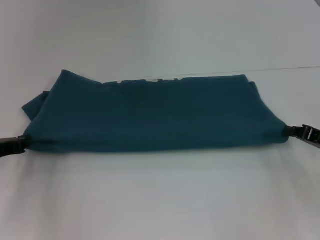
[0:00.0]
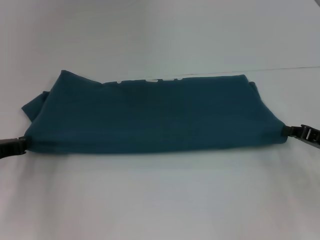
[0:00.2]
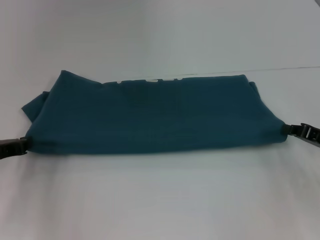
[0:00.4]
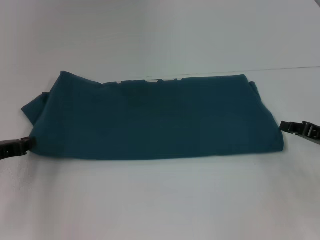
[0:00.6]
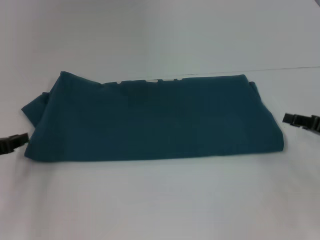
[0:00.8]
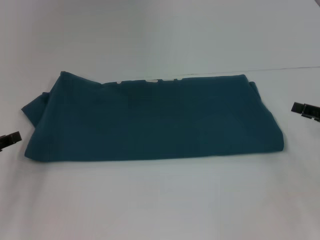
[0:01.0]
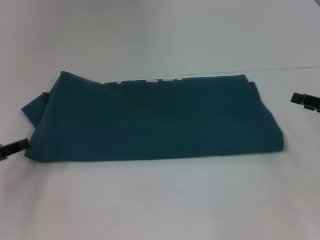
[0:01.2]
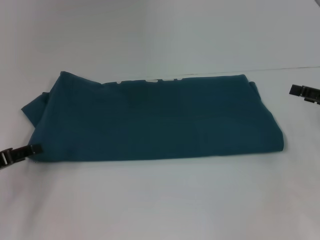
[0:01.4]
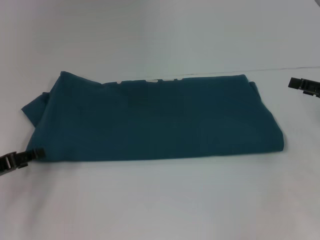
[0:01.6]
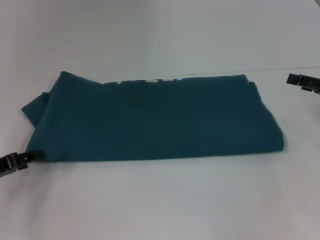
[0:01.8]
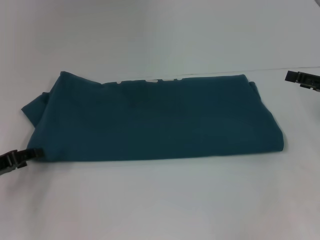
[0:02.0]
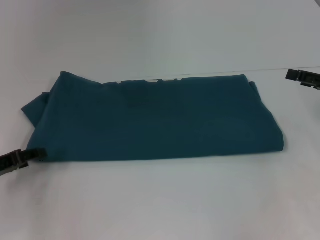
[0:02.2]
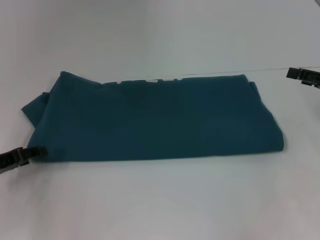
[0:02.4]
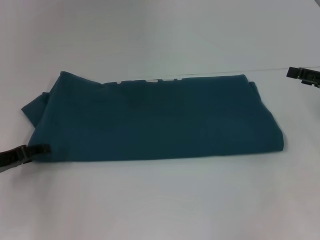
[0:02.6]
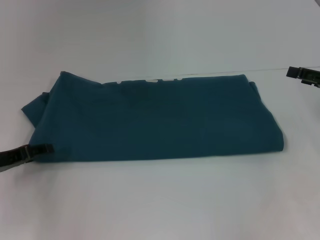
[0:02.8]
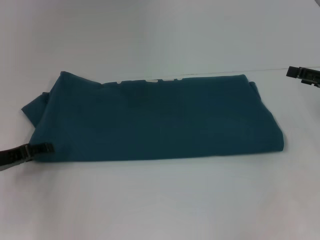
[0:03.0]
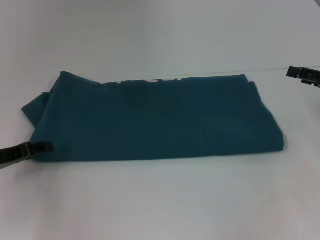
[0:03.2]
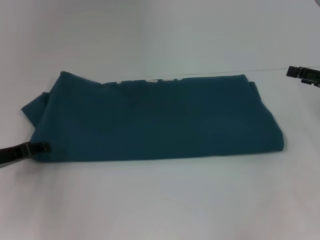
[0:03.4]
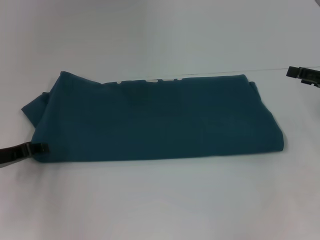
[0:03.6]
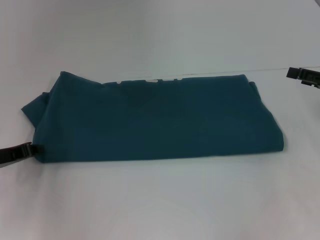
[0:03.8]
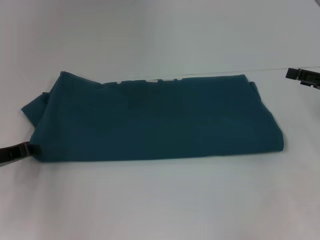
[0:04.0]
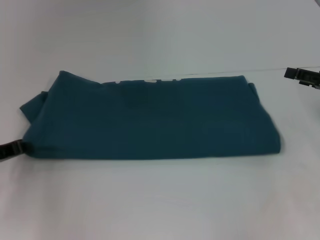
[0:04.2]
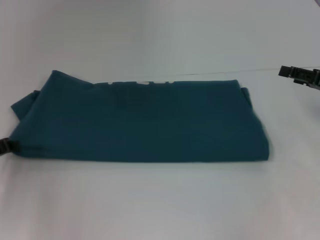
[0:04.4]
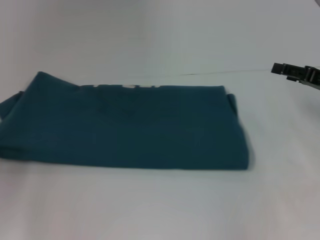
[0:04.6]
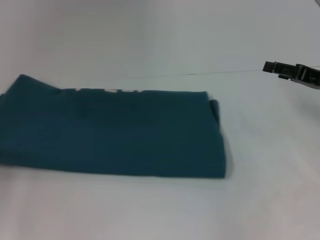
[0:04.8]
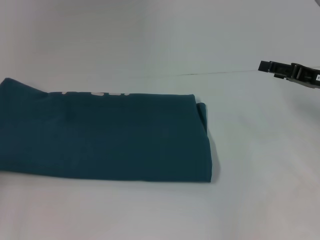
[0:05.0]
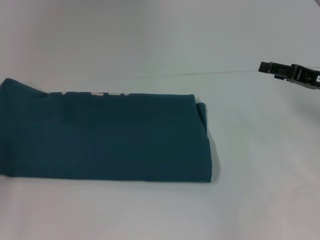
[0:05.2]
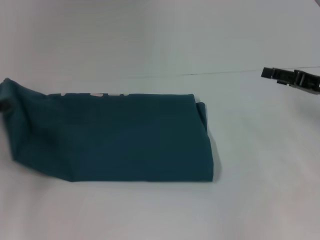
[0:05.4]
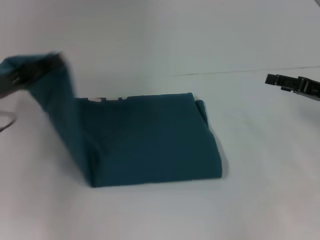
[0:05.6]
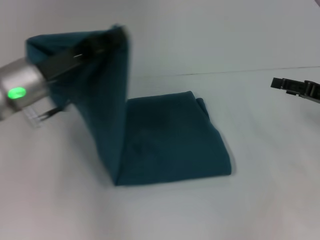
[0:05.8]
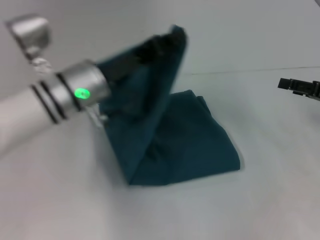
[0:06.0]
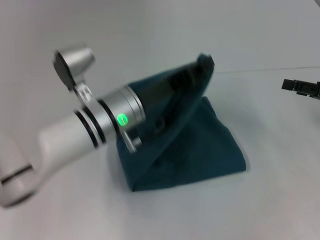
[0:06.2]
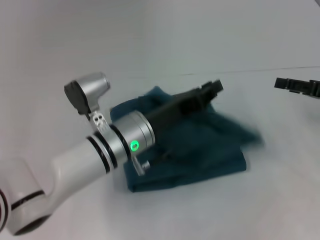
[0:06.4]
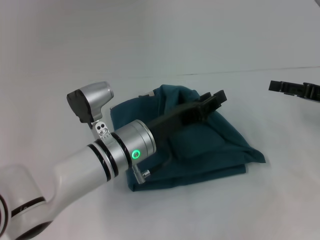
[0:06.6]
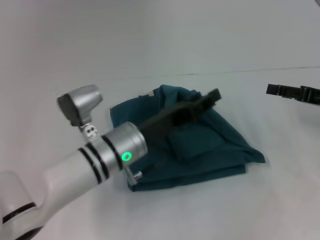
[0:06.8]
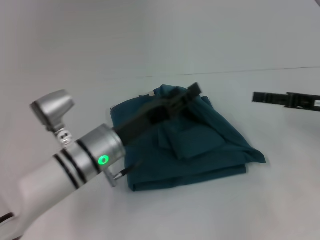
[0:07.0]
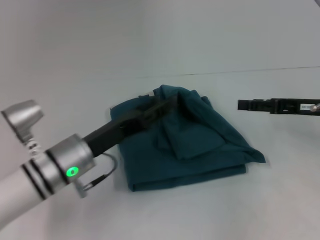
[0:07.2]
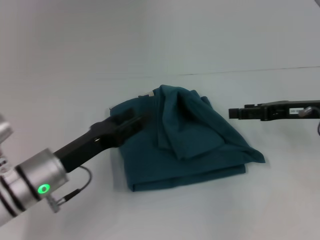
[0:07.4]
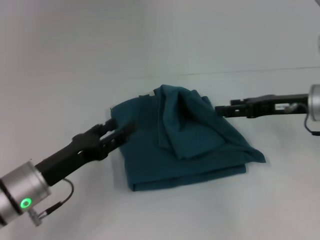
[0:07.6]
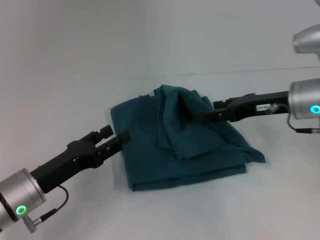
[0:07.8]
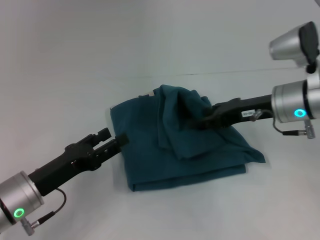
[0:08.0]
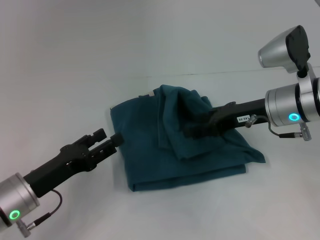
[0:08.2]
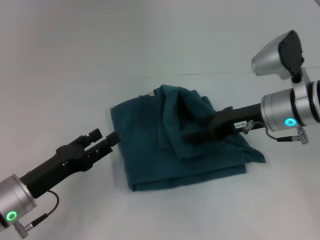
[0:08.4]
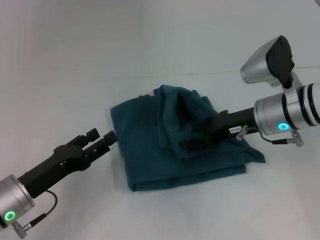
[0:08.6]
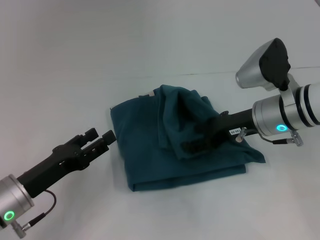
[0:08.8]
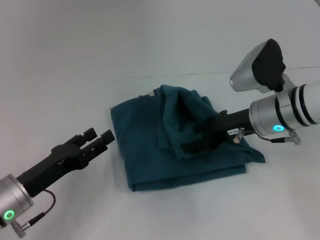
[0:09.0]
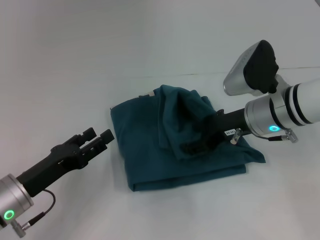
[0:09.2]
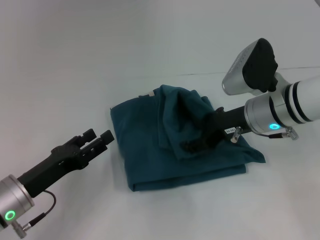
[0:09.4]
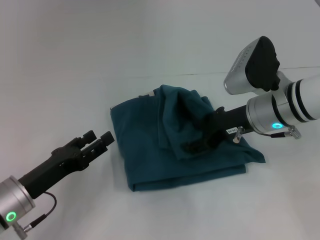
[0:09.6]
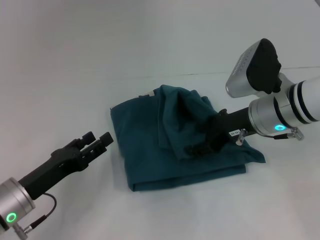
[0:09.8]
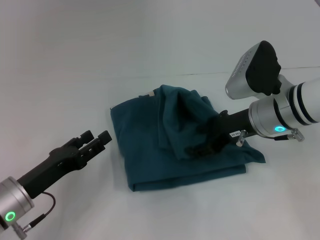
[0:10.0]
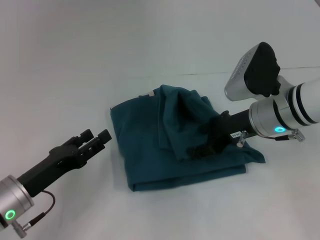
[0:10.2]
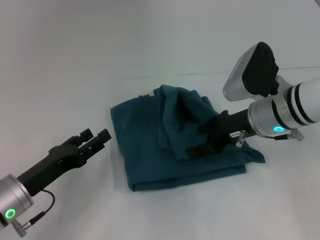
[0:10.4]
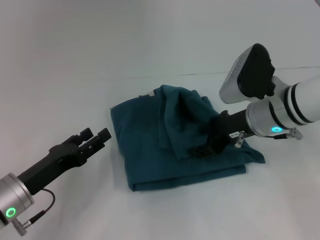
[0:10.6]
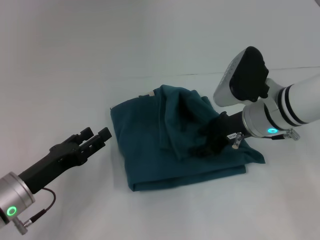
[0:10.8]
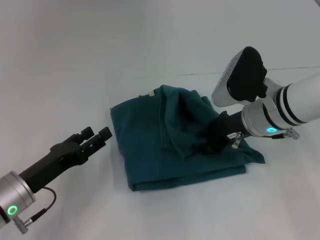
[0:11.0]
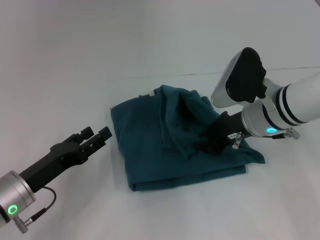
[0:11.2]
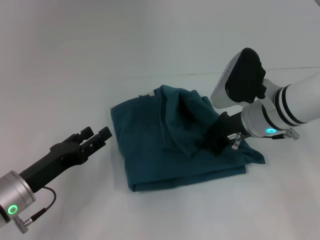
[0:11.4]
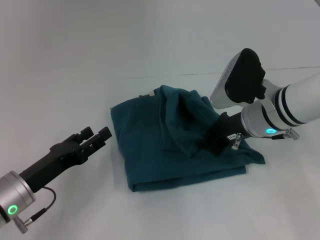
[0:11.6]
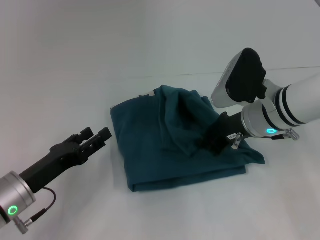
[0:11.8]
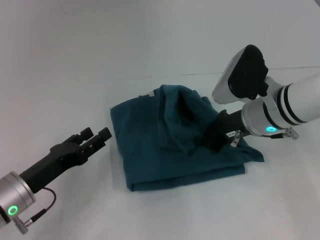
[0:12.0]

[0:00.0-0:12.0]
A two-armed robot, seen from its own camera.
Step, 0:01.2 to 0:07.2: Fold the clothes to the left.
0:00.0 to 0:01.6: The right gripper heads upward, covering about 5 cm, and opens. The left gripper opens up.
0:01.6 to 0:03.0: There are only small adjustments of the grippers.
0:03.0 to 0:04.4: The left gripper closes.
0:04.4 to 0:06.0: The left gripper travels to the right by roughly 20 cm.
0:06.0 to 0:07.6: The right gripper is displaced to the left by about 10 cm. The left gripper goes approximately 15 cm downward, backward and to the left, and opens up.
0:07.6 to 0:09.0: The right gripper heads to the left, covering about 10 cm.
0:09.0 to 0:10.4: The grippers stay close to where they were, moving slightly.
0:10.4 to 0:12.0: The right gripper closes its fingers.

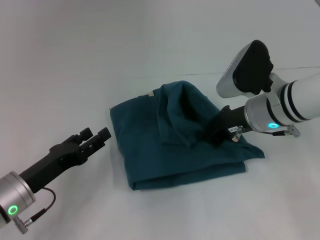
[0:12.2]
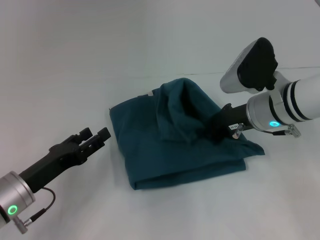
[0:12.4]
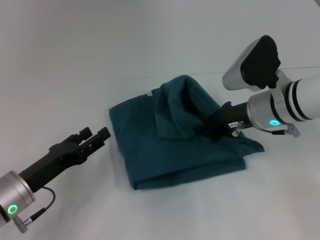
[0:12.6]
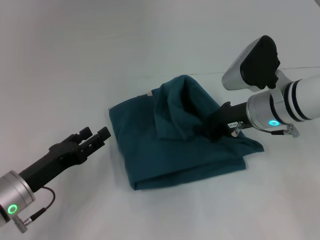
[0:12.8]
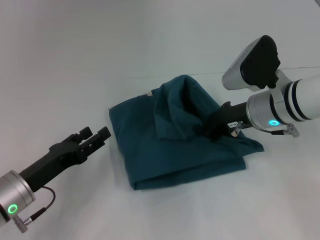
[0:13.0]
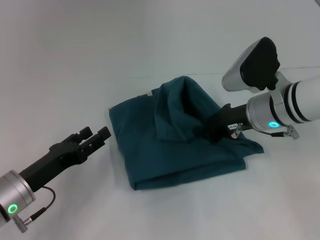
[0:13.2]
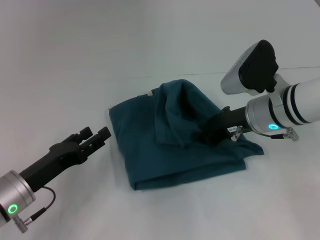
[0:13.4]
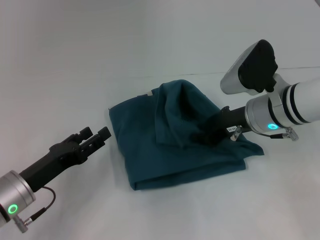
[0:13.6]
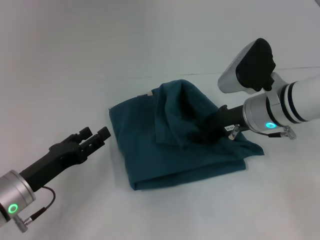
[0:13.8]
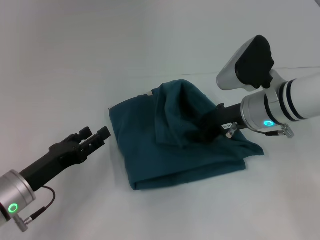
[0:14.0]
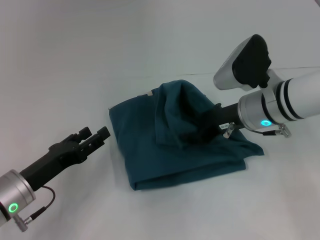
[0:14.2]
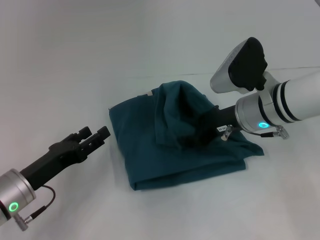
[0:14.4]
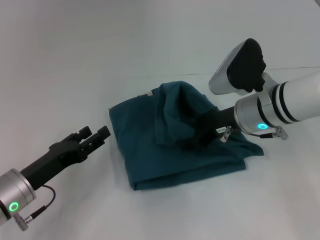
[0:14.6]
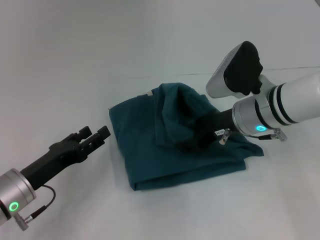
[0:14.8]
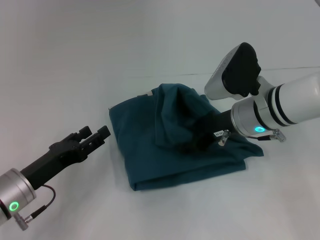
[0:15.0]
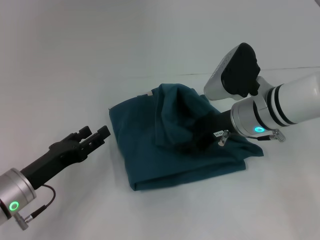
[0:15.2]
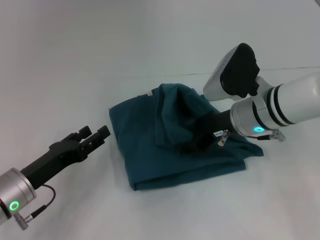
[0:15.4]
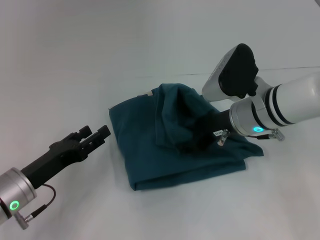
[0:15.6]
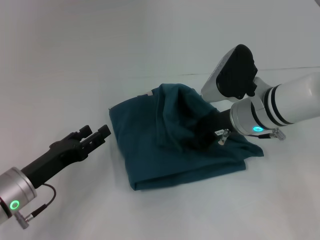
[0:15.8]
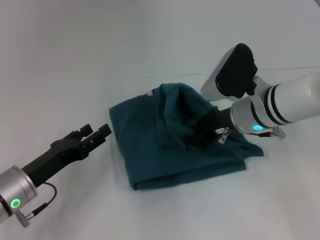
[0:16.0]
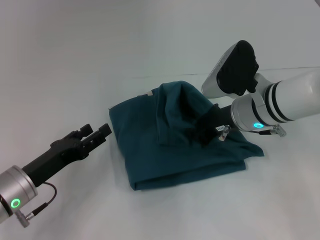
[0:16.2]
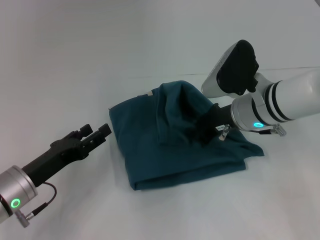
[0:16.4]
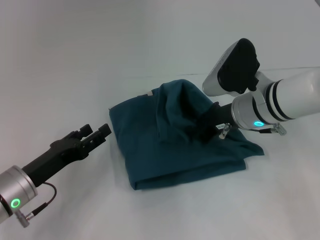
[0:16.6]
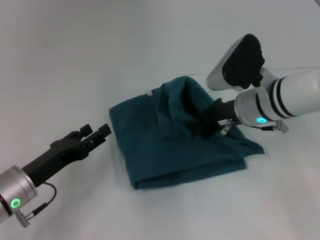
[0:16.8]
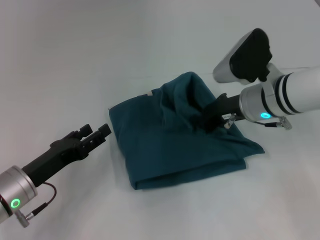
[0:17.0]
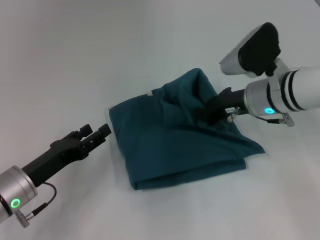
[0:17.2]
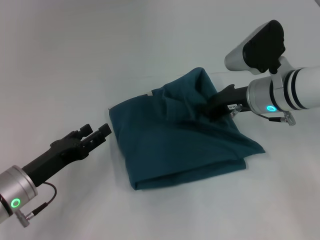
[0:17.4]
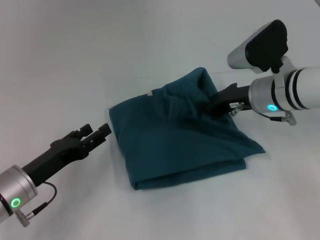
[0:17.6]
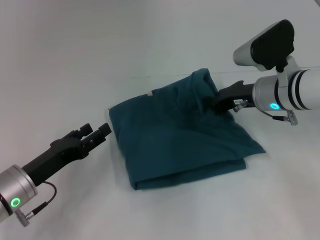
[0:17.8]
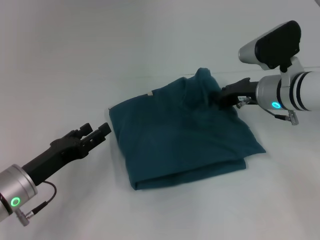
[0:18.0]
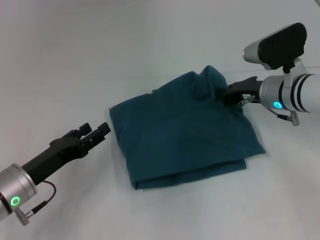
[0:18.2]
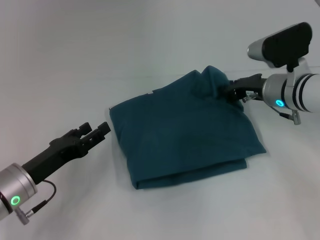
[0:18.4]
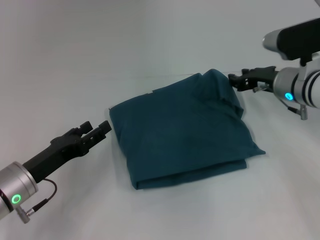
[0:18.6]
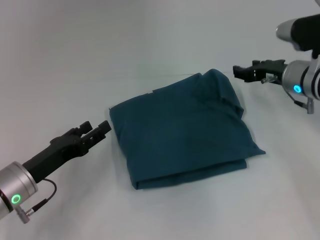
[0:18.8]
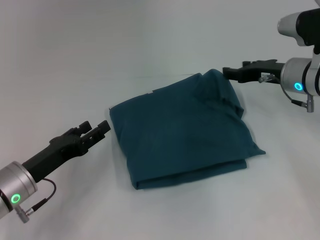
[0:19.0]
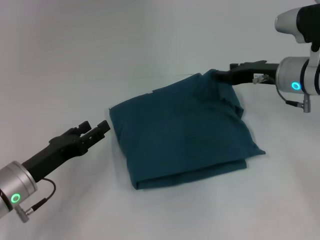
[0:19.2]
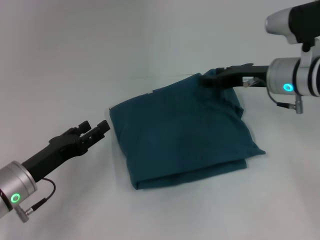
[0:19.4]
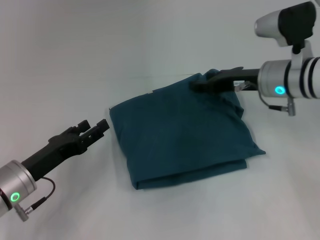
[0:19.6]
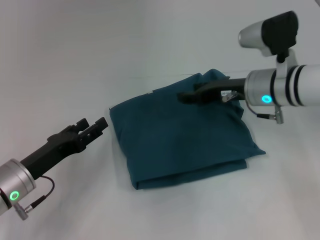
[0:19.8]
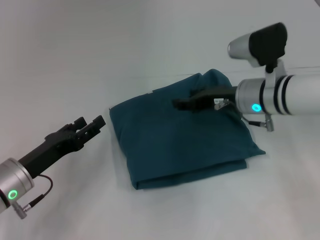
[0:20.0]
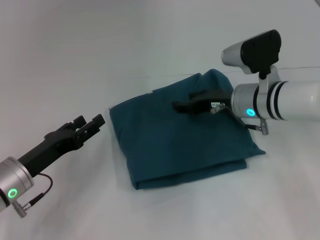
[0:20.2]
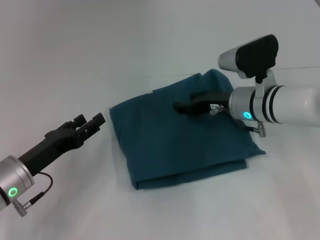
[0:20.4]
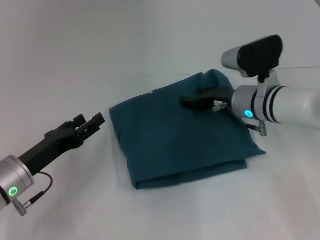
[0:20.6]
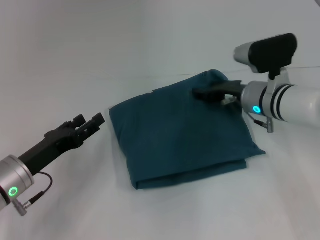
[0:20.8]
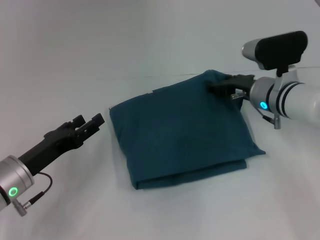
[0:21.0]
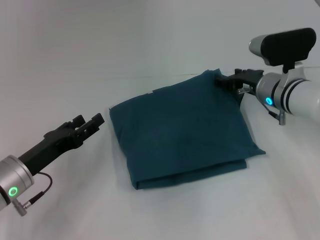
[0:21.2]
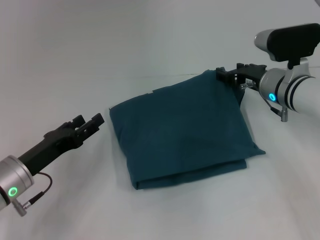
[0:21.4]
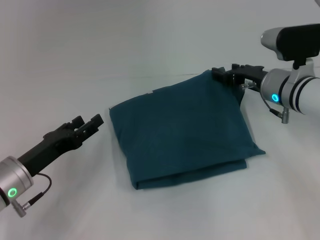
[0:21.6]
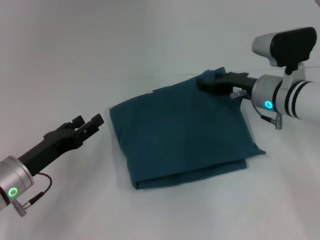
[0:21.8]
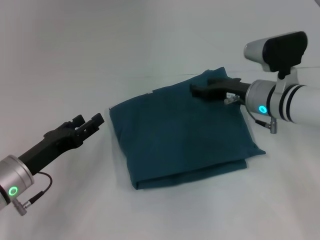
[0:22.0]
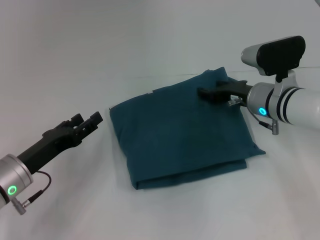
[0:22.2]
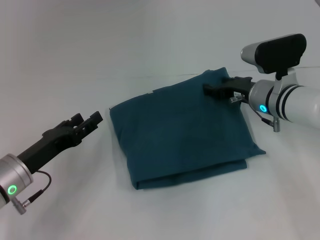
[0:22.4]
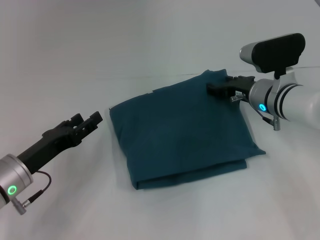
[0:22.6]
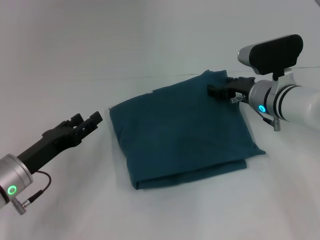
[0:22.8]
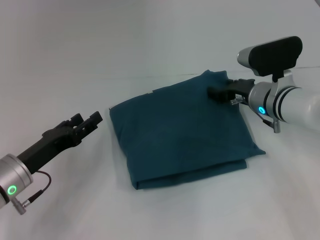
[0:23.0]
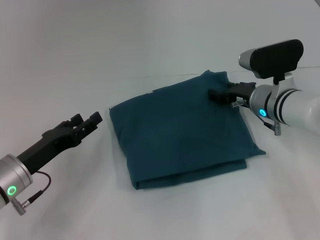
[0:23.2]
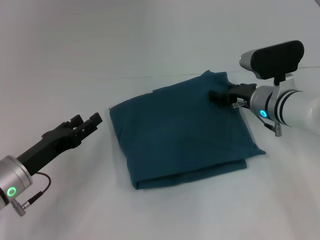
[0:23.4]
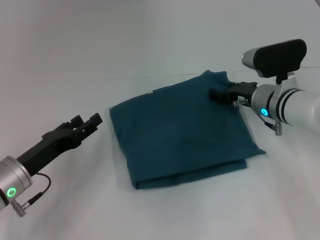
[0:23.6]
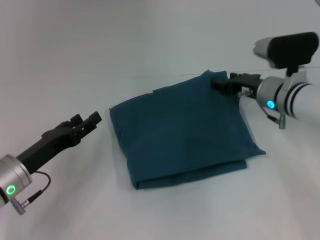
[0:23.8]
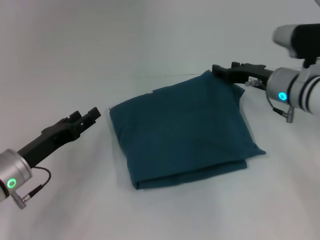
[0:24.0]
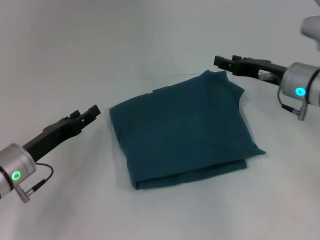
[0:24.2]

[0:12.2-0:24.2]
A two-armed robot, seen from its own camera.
0:12.2 to 0:15.2: The grippers move only a little.
0:15.2 to 0:16.6: The right gripper closes its fingers.
0:16.6 to 0:18.2: The right gripper shifts some 5 cm to the right.
0:18.2 to 0:19.8: The right gripper opens its fingers.
0:21.2 to 0:22.6: The grippers make only small movements.
0:22.6 to 0:24.2: The right gripper shifts by approximately 5 cm.
